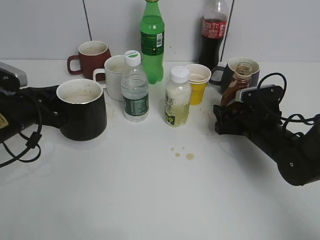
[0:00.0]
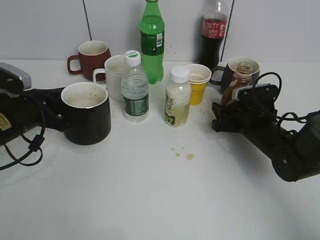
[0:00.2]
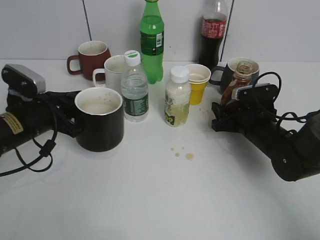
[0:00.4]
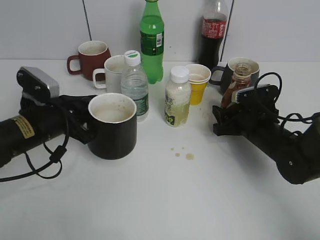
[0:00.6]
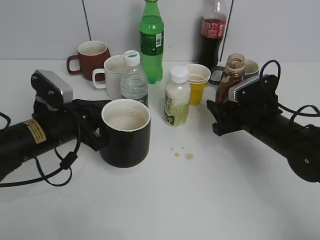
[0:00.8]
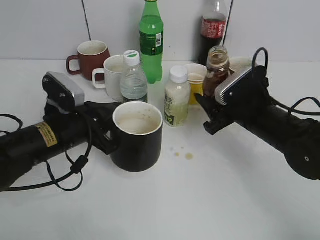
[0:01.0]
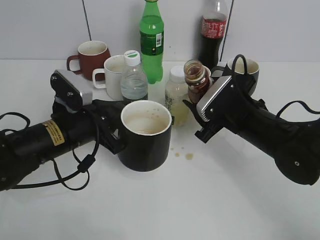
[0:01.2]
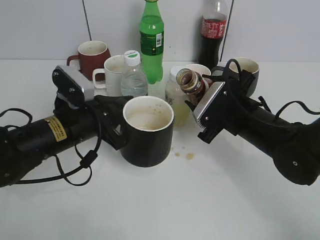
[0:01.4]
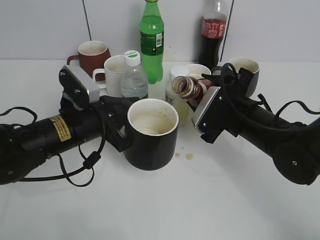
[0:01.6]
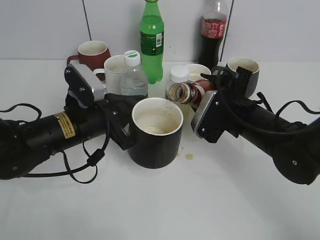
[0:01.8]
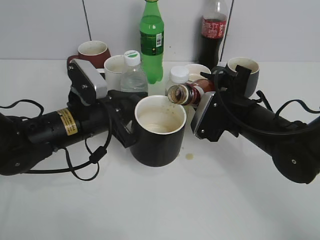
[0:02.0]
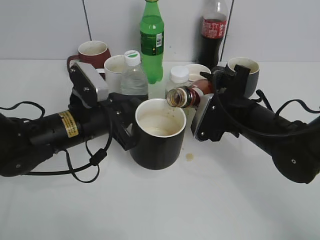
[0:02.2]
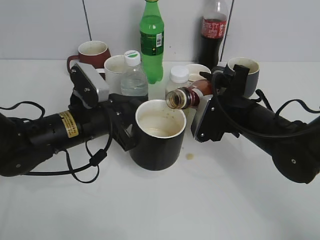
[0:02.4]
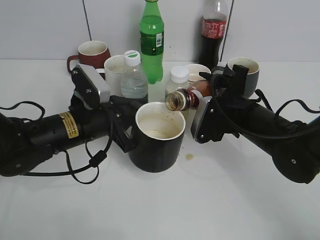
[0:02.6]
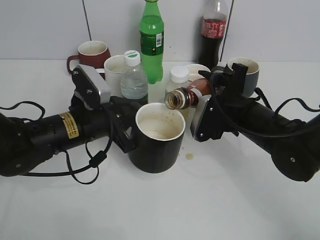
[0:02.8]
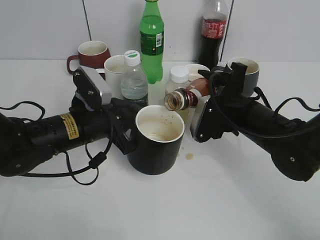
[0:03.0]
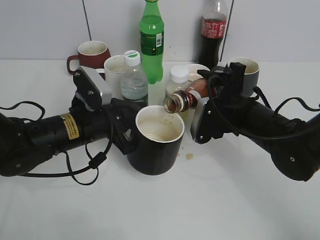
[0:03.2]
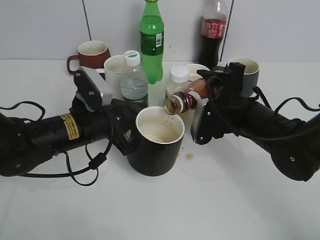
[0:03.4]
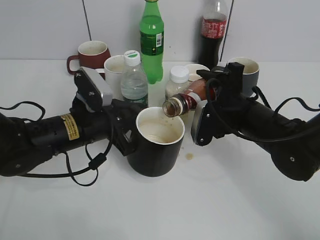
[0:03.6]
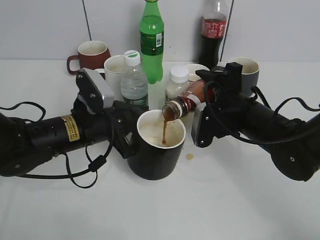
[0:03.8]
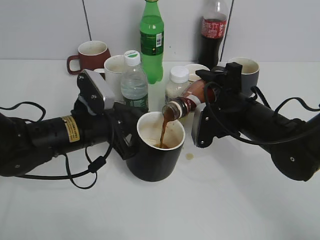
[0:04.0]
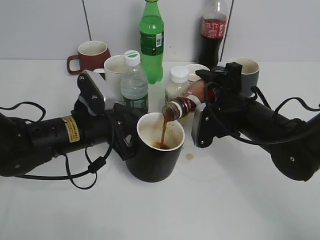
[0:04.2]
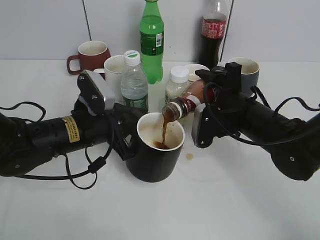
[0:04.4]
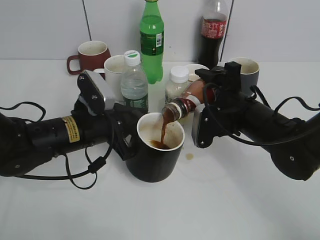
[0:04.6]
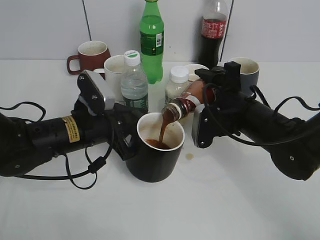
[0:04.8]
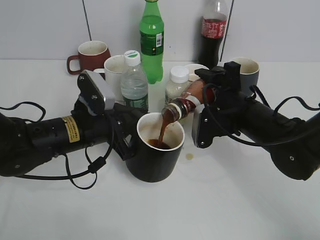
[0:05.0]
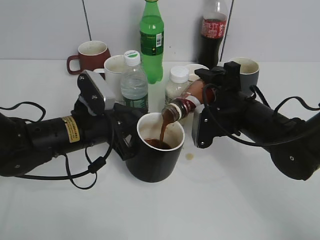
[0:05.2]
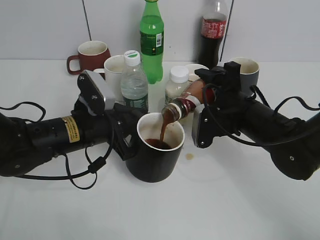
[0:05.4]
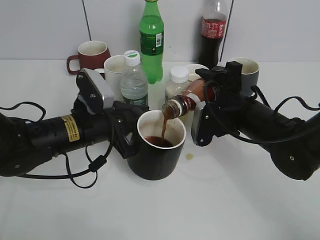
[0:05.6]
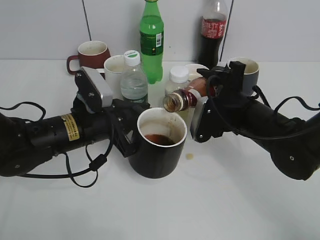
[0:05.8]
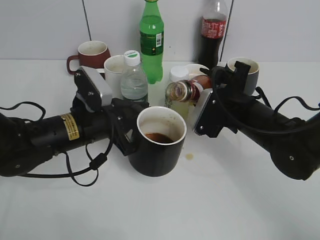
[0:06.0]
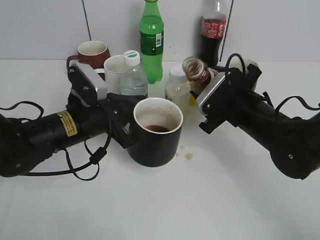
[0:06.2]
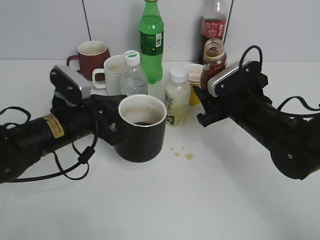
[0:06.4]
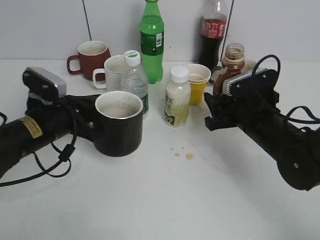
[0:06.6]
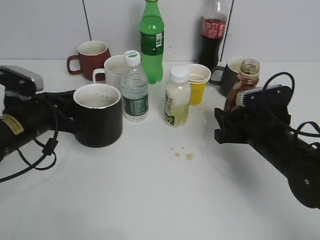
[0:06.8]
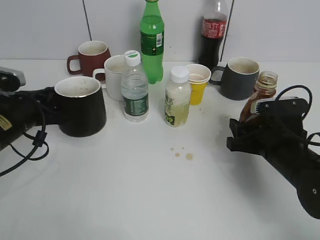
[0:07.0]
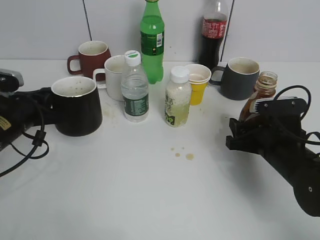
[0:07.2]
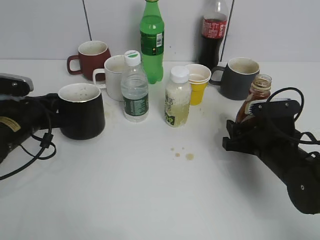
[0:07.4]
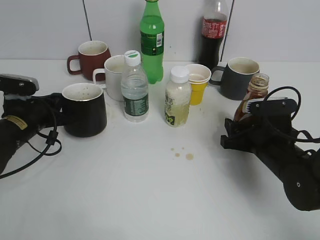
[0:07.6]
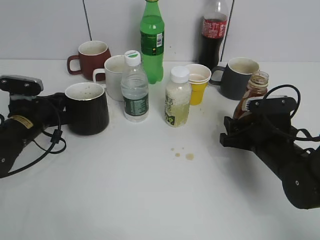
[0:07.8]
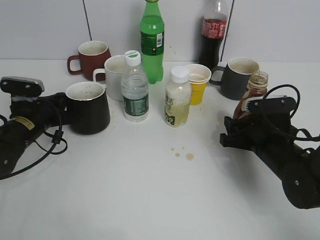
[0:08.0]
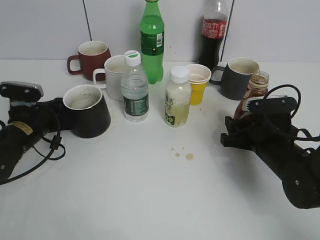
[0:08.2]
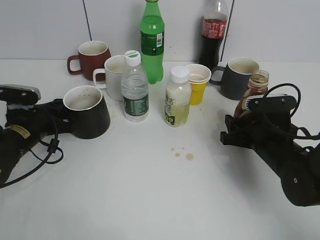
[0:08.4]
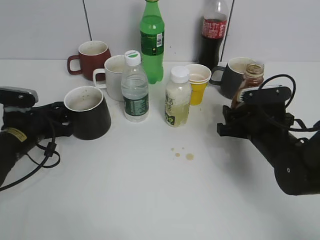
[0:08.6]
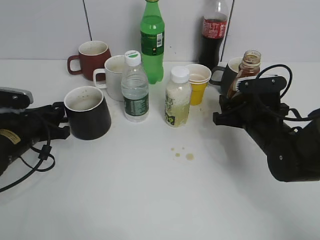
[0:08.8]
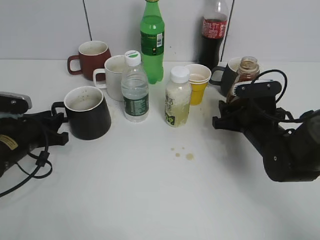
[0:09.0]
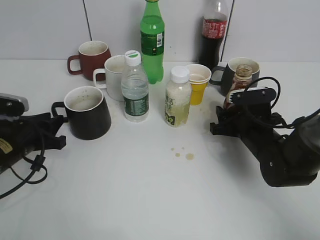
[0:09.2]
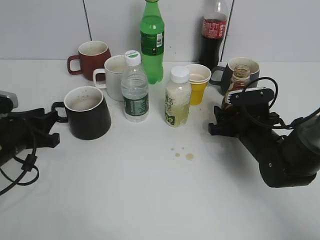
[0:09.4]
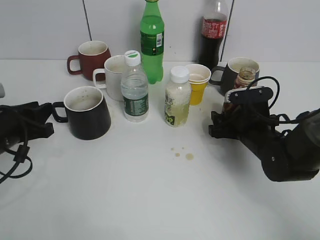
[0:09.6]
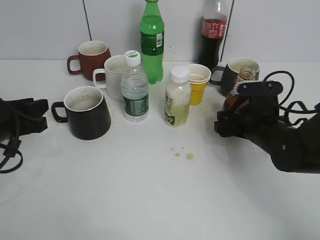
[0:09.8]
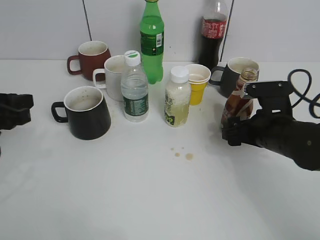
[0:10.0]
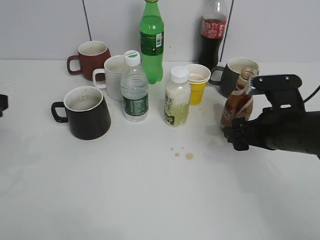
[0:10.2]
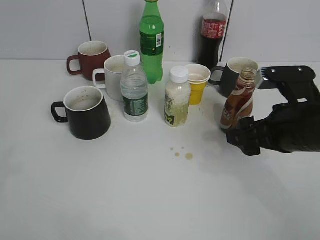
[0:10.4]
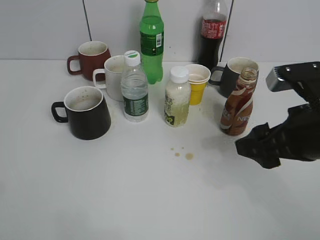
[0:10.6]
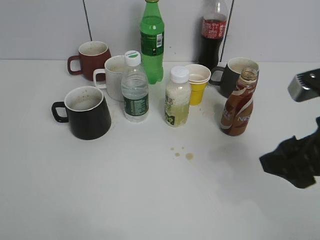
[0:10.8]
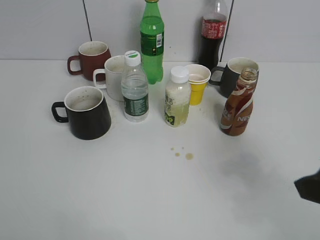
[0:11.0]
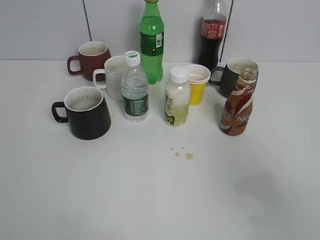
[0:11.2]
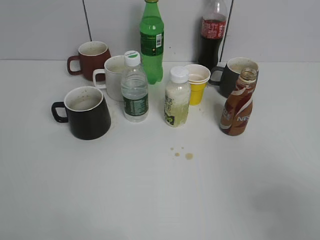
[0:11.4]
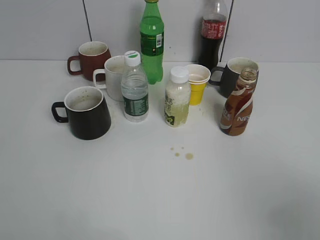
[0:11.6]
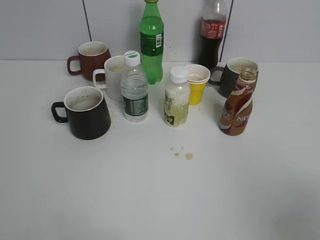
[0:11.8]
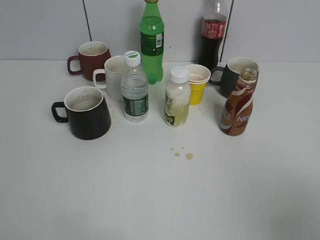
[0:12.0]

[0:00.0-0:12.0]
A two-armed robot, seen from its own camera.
Step, 0:00.4 to 0:06.2: Pour the coffee from bottle to cup with right gripper.
Step, 0:06.4 to 0:09.8: Place the coffee bottle on the table with right gripper.
0:00.0 to 0:01.6: The right gripper shifts some 10 cm upward and to the left, and closes its fingers; the left gripper travels to the right by about 10 cm.
0:03.0 to 0:06.0: The grippers make only small movements.
0:06.0 to 0:07.6: The left gripper goes approximately 10 cm to the left. The right gripper heads to the right and downward, covering some 5 cm.
0:07.6 to 0:09.0: The left gripper opens its fingers.
0:09.0 to 0:10.4: The right gripper shifts roughly 15 cm upward and backward, and opens its fingers; the left gripper travels upward and backward by roughly 25 cm.
0:10.4 to 0:12.0: The right gripper travels backward, upward and to the right by about 25 cm, while the left gripper is displaced backward by roughly 15 cm.

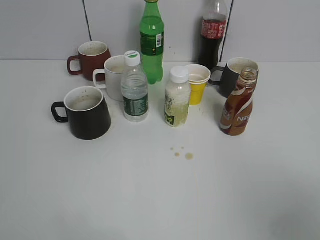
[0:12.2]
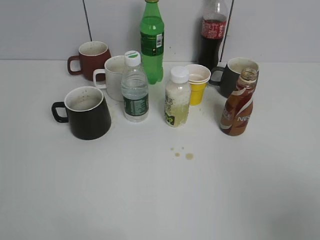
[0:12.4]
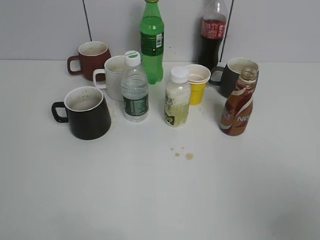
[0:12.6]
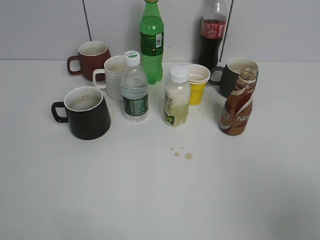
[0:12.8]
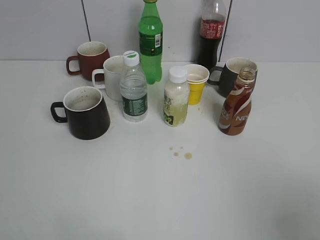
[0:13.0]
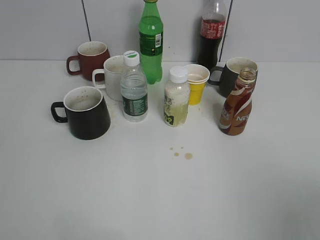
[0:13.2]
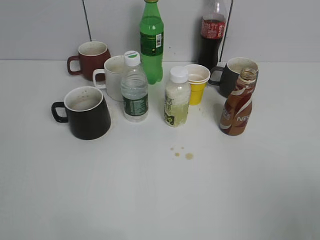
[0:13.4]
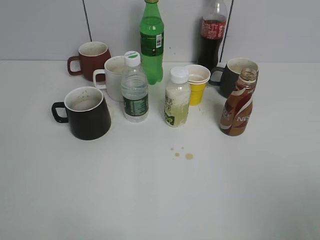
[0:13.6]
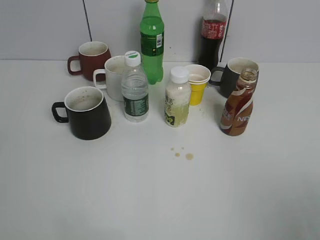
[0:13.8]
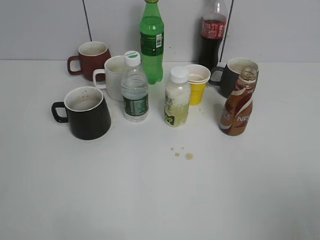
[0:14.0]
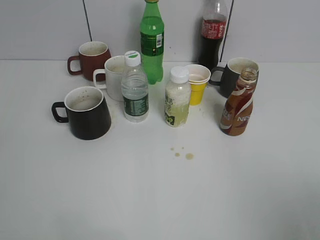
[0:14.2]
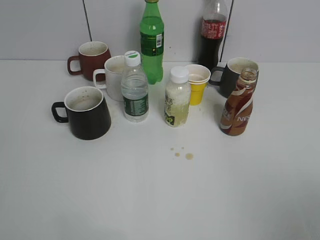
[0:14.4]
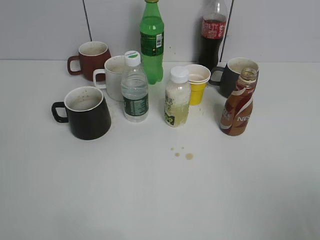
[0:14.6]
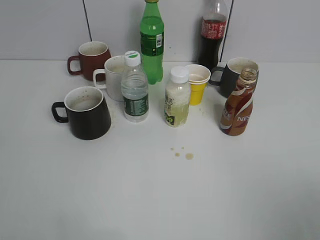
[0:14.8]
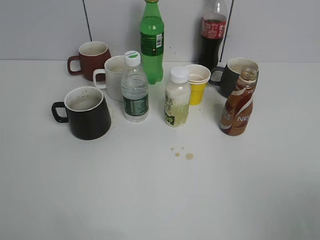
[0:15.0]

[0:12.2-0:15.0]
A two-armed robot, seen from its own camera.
0:13.6 to 0:15.0: Both grippers stay about where they are.

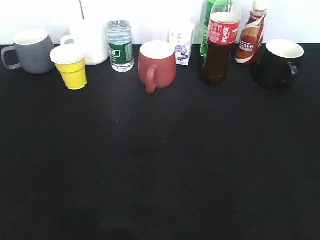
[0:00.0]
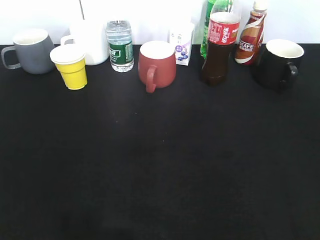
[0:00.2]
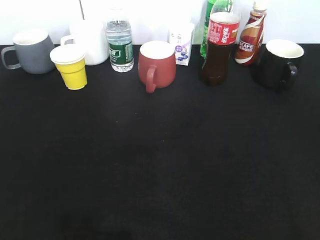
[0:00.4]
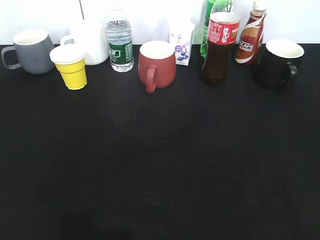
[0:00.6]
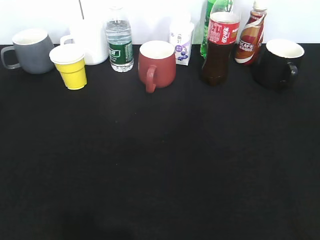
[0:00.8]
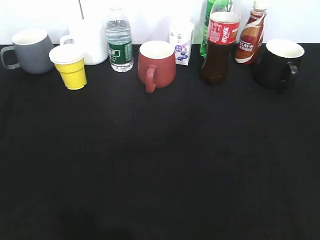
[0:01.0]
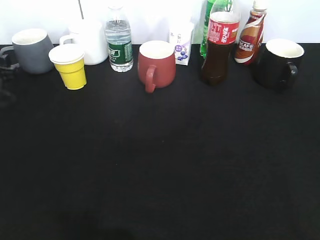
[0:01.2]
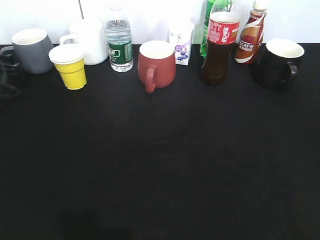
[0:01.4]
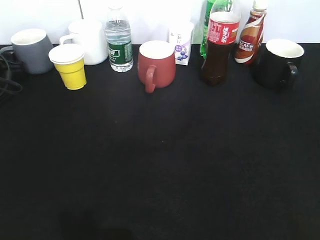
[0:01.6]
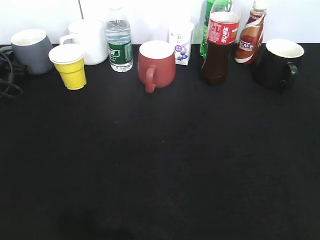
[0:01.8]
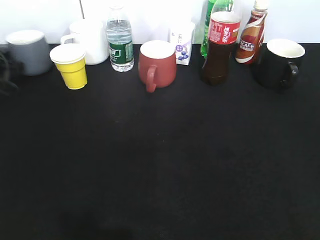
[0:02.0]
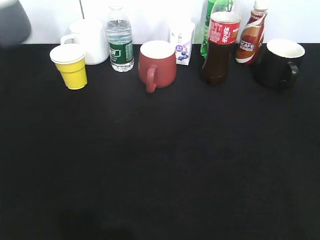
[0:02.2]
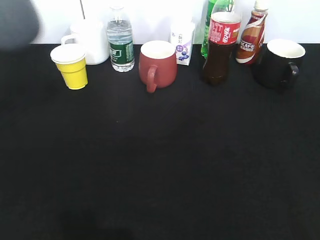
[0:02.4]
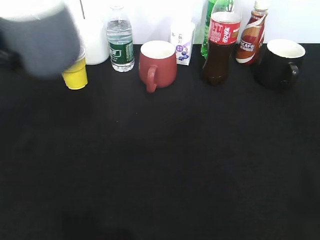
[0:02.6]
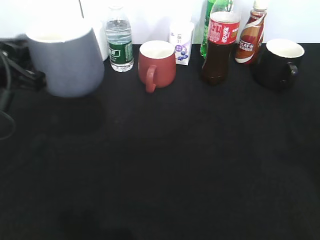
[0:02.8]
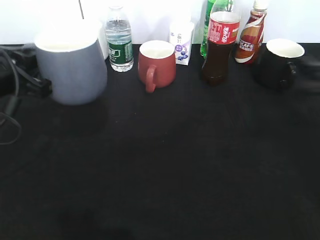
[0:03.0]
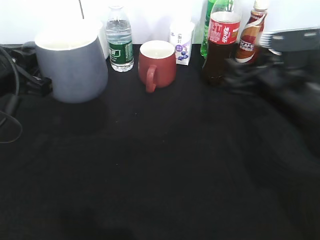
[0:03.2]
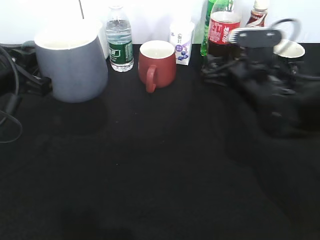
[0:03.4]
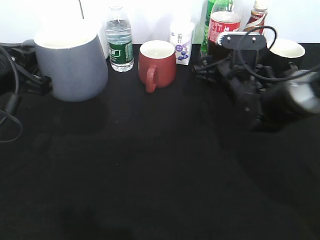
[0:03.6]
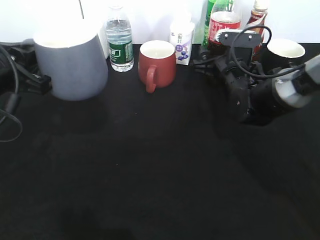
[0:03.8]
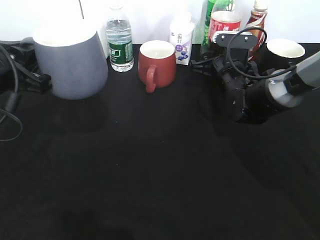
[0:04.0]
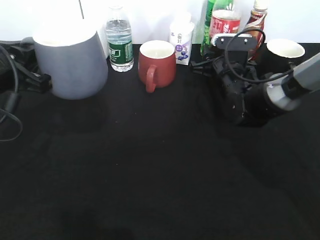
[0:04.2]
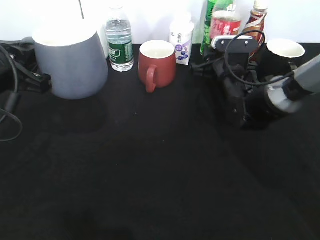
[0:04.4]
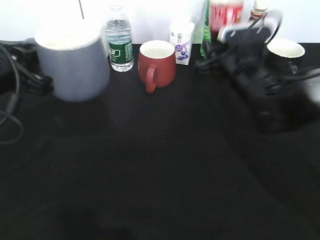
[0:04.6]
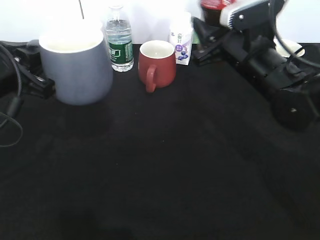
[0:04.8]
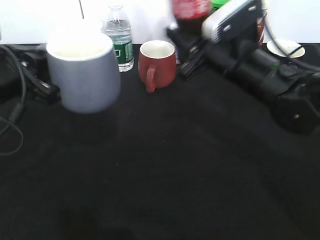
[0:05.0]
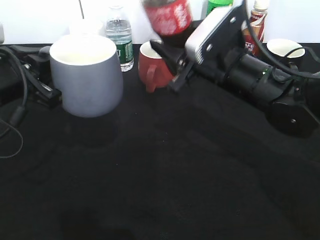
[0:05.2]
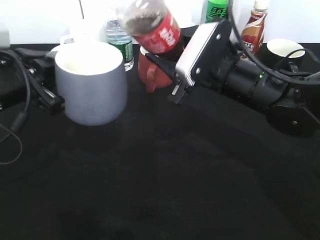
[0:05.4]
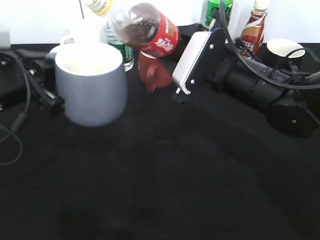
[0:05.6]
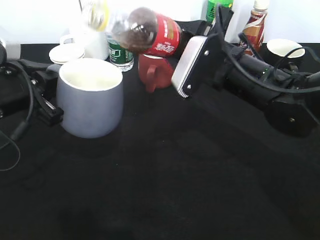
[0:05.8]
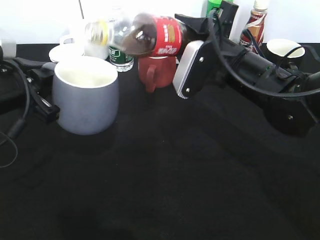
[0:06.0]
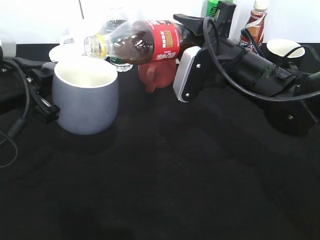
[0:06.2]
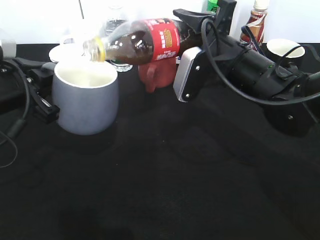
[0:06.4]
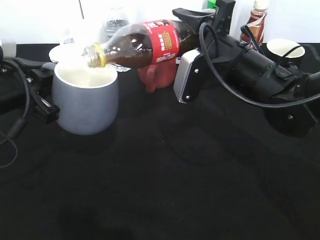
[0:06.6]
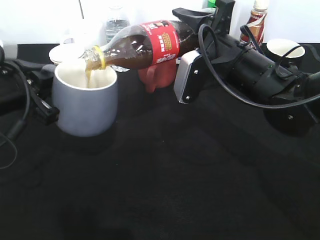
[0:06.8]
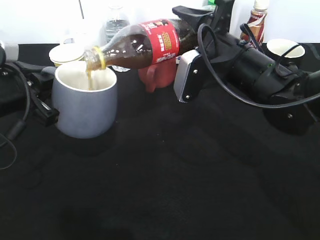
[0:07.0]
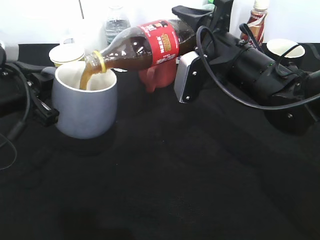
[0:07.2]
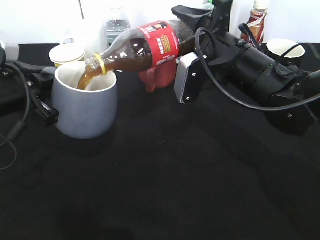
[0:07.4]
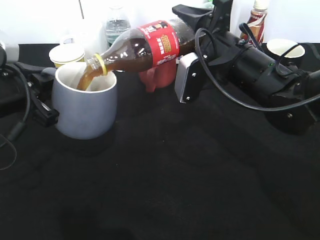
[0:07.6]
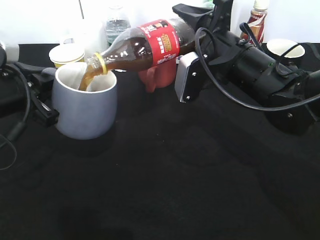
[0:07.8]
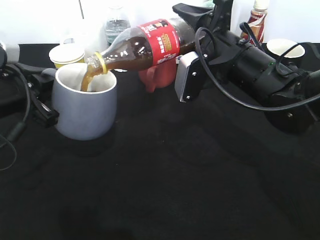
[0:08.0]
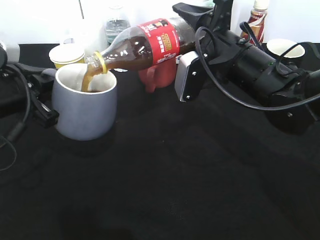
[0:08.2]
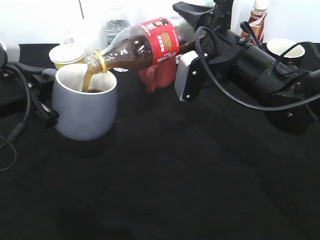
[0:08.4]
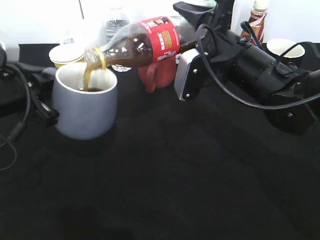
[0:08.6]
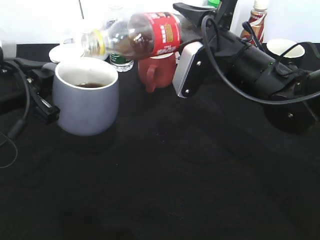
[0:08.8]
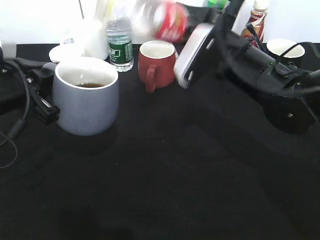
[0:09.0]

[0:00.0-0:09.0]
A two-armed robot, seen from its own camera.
Step, 0:02.2 to 0:02.6: Lift the grey cup with left gripper.
Step, 0:02.8 to 0:04.4: Grasp the bottle with cola with right gripper.
Step, 0:04.6 to 0:08.4: Pour the cola from bottle to cup with right gripper.
0:00.0 to 0:01.6: The left gripper travels forward by some 40 cm.
0:01.6 to 0:03.0: The left gripper moves backward, to the right and upward, approximately 25 cm, and closes its fingers.
0:03.0 to 0:04.4: The right gripper heads forward, to the left and downward, covering some 25 cm, and closes.
0:04.4 to 0:06.0: The right gripper goes some 15 cm upward and backward.
